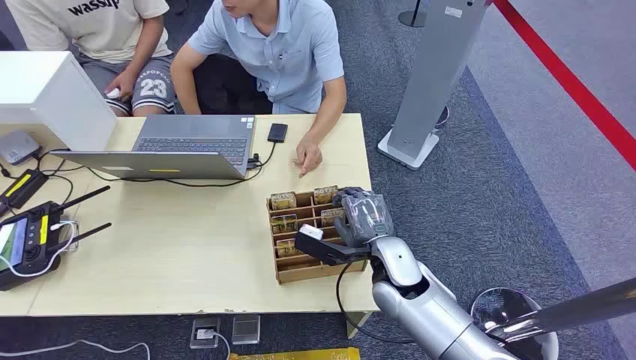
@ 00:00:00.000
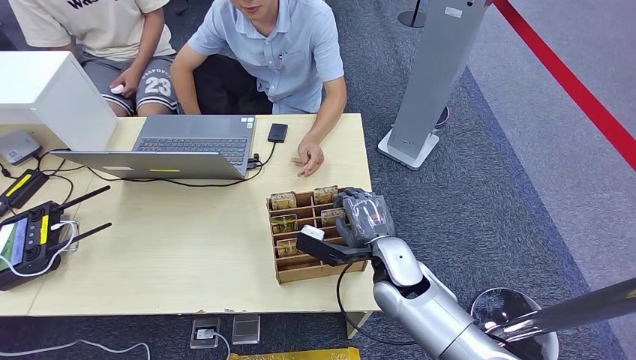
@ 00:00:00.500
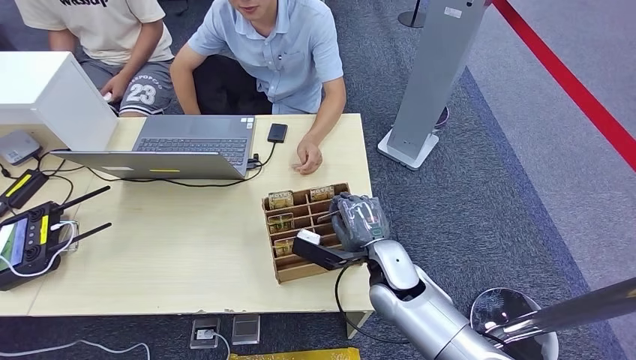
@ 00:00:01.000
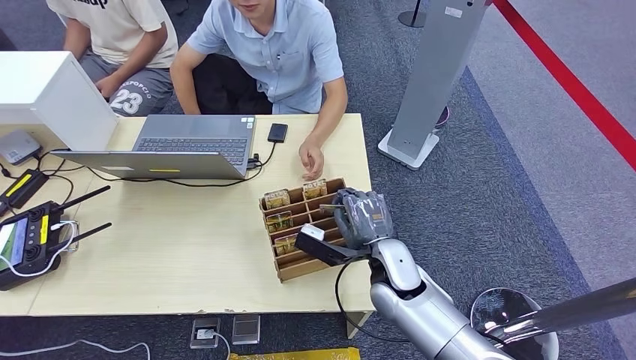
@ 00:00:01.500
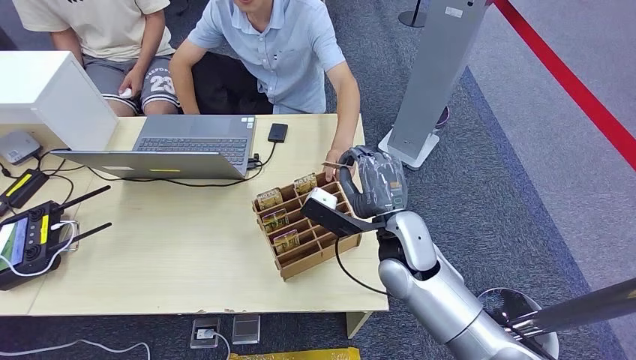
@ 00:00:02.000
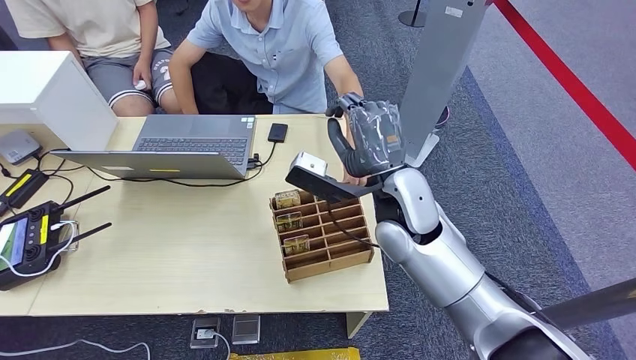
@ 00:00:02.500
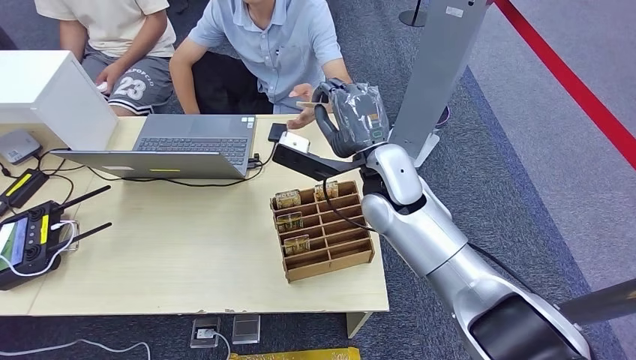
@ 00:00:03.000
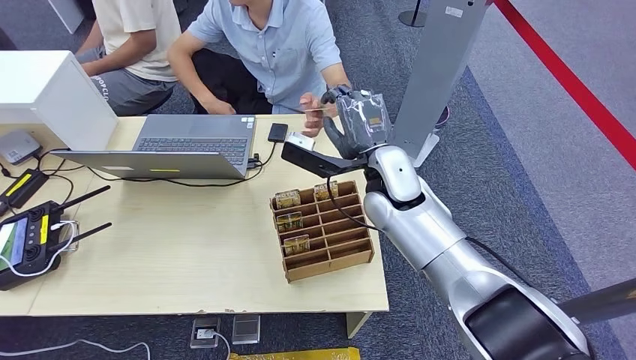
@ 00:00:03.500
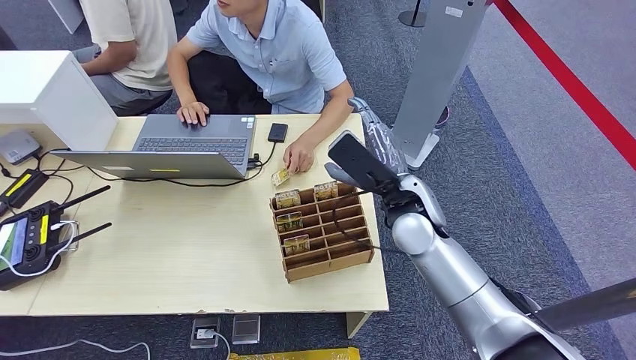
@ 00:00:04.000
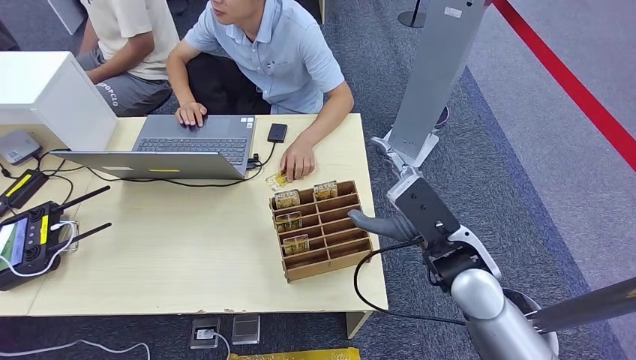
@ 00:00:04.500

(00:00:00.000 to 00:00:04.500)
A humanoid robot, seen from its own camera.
Task of the whole recording: Pick up the card and hand it to the target person.
Step, 00:00:00.000 - 00:00:02.000: Pick up the key card from the card box.
Step, 00:00:02.500 - 00:00:04.500: Hand the key card to the target.
